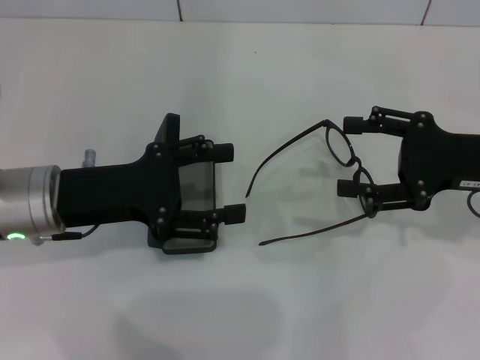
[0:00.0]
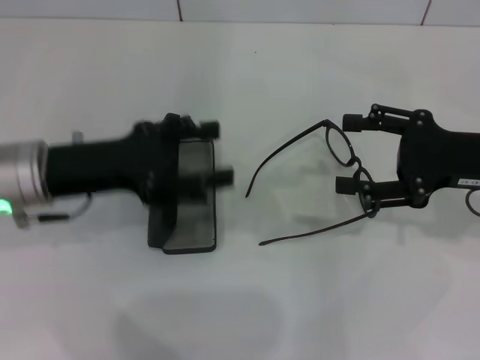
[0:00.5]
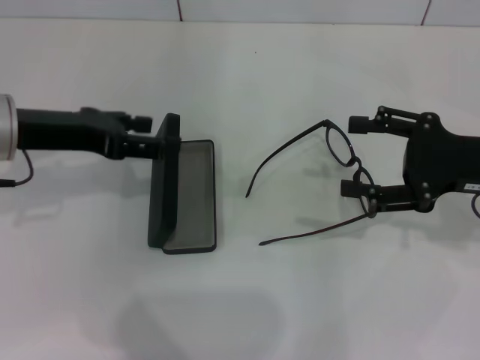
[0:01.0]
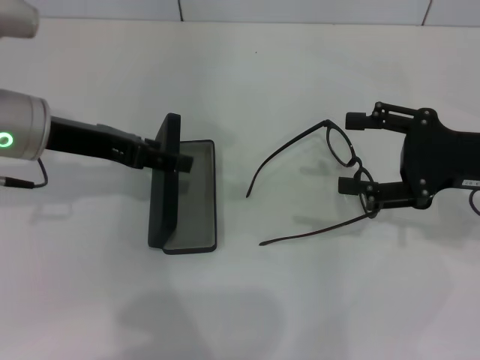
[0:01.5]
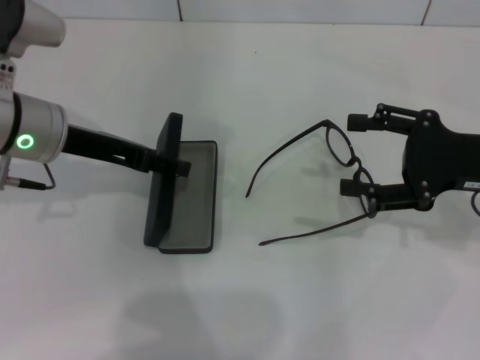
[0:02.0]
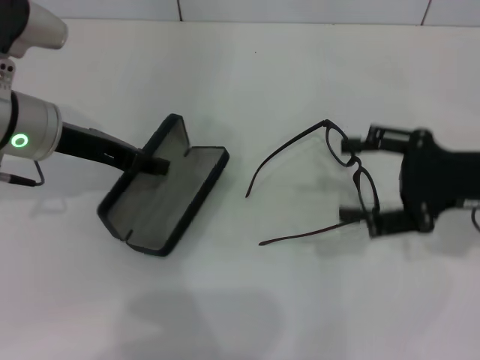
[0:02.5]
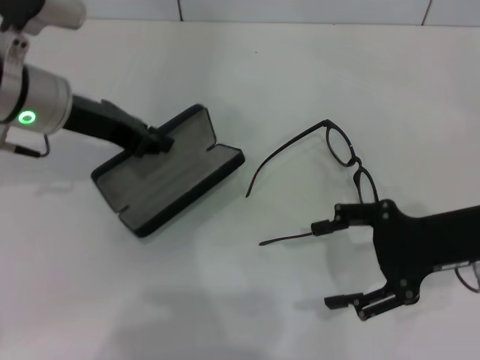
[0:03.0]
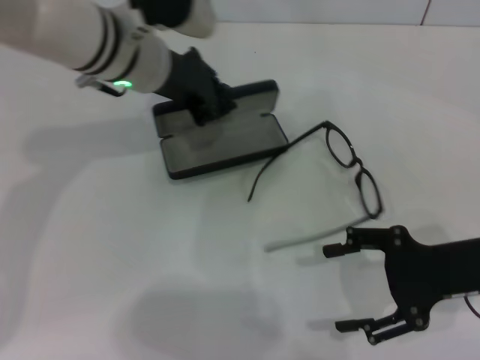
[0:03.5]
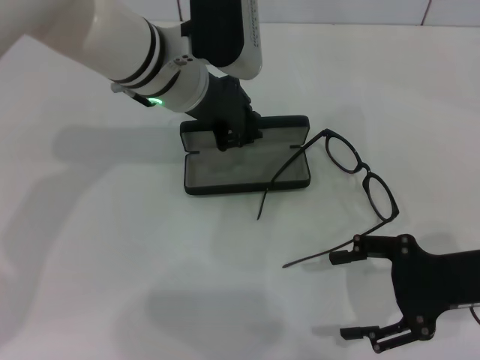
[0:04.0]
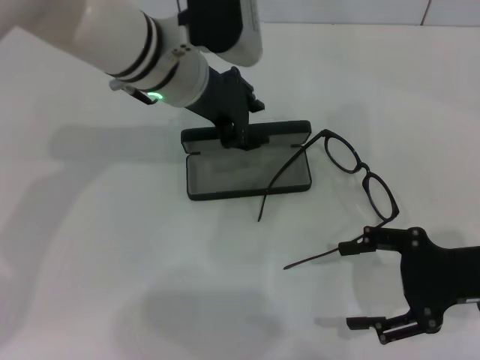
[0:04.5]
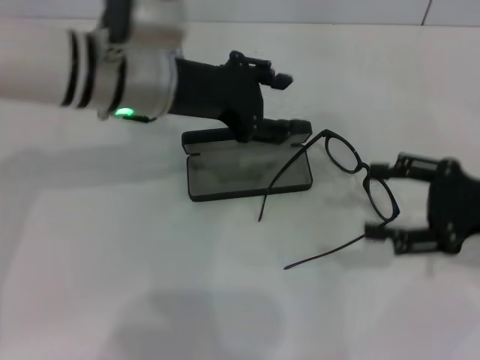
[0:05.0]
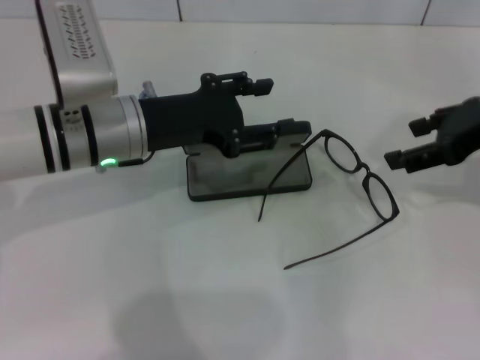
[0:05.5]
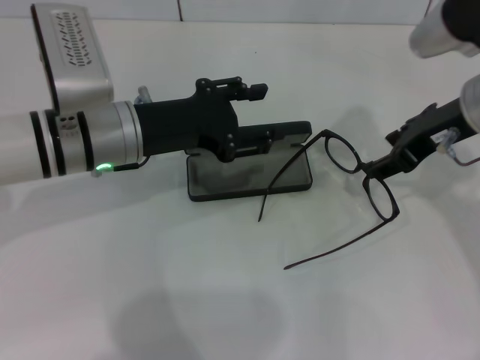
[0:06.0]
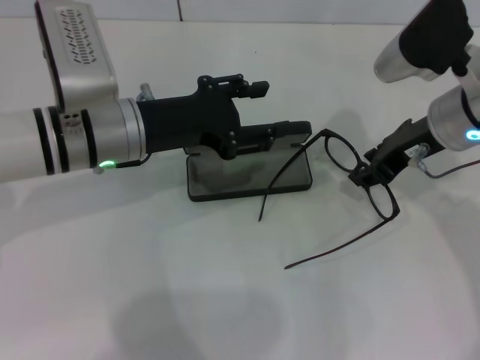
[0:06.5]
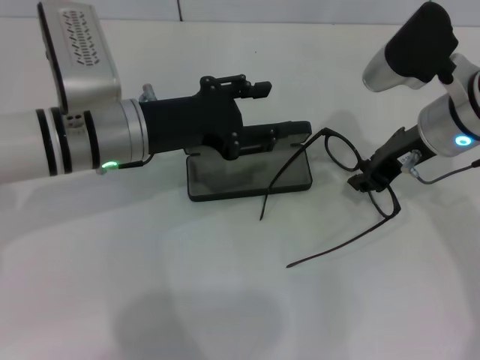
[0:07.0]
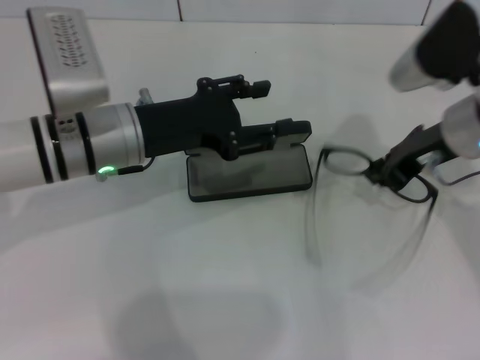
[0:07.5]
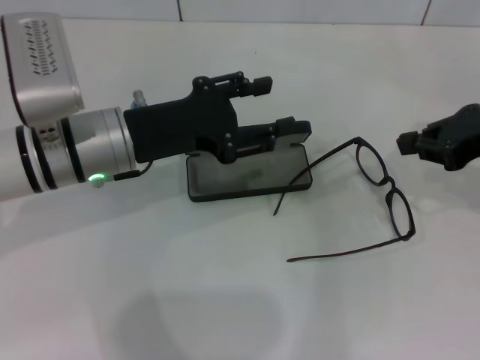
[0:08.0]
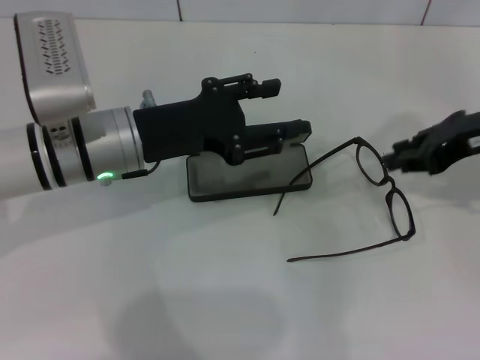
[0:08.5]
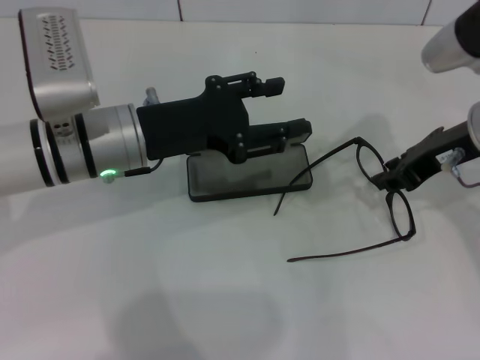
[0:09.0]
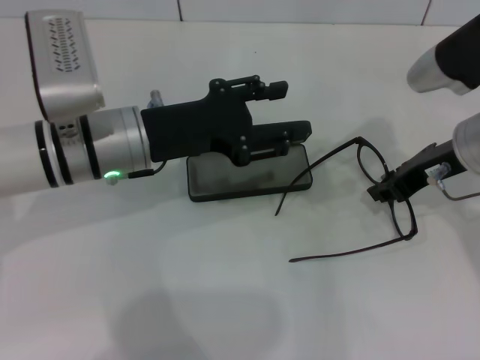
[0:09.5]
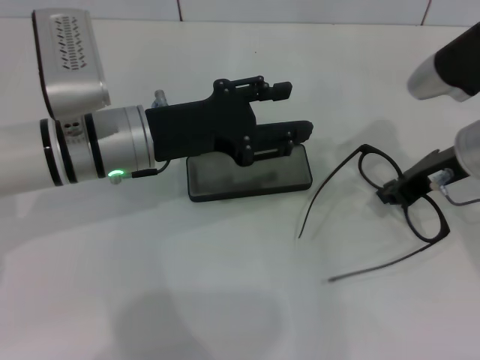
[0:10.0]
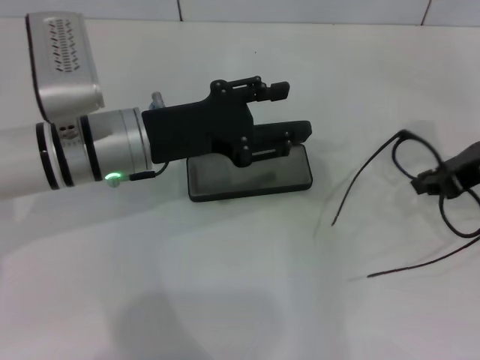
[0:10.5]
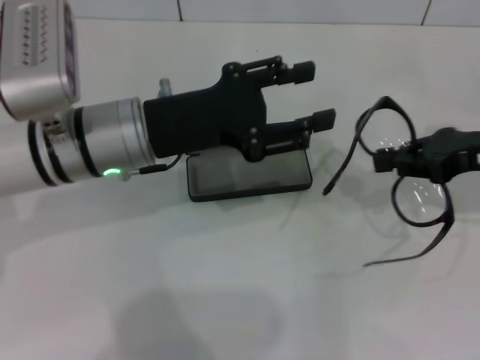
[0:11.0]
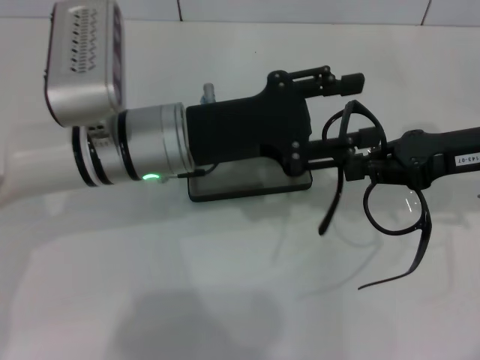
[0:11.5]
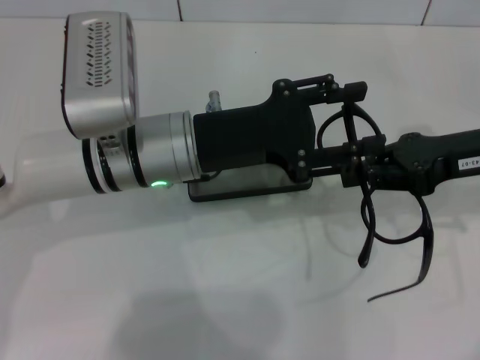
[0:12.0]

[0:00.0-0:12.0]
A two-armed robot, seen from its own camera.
Step, 0:00.0 to 0:02.5: Grab the glasses case with your left hand.
Step, 0:03.0 to 0:04.5: Place the glasses case in the center of the table with your left hand.
Step, 0:05.0 to 0:09.5: Grab the eyeglass frame with your right hand.
0:00.0 to 0:02.0: The left gripper moves forward, approximately 5 cm.
0:02.0 to 0:04.0: The right gripper moves backward, some 5 cm. Meanwhile the left gripper shifts roughly 15 cm to the right, and closes its fingers.
0:04.0 to 0:06.0: The right gripper goes approximately 15 cm forward, upward and to the left. Meanwhile the left gripper shifts some 10 cm to the left and backward, and opens up.
0:06.0 to 0:08.0: The right gripper travels to the right by some 10 cm, and closes its fingers.
0:08.0 to 0:10.0: The right gripper goes roughly 5 cm to the left.

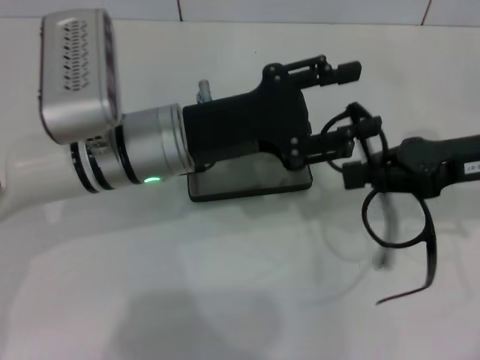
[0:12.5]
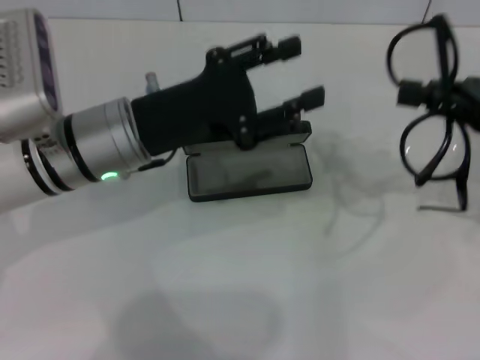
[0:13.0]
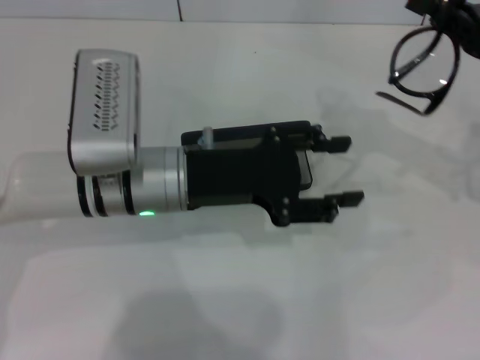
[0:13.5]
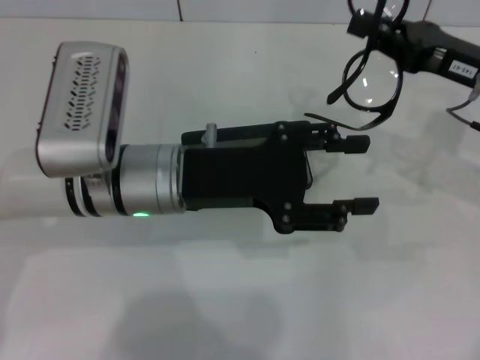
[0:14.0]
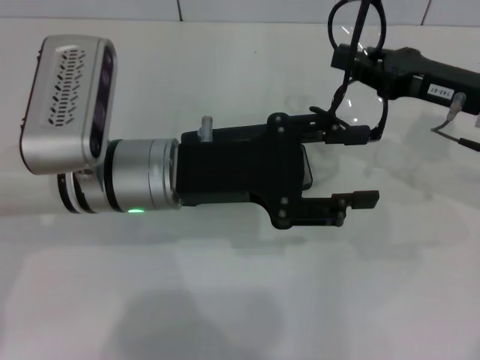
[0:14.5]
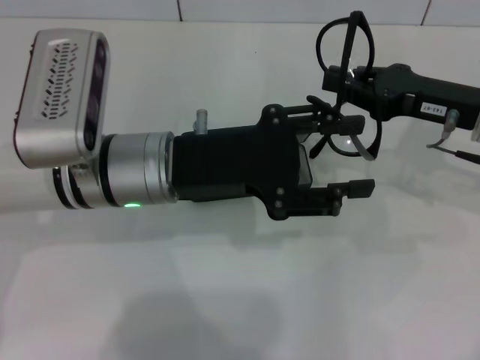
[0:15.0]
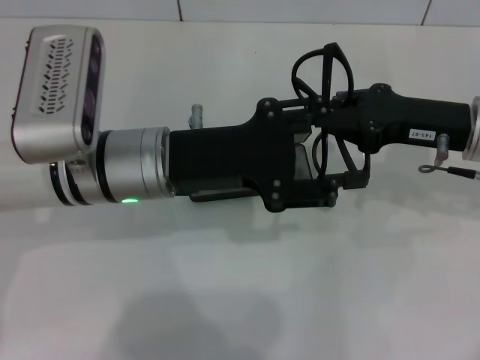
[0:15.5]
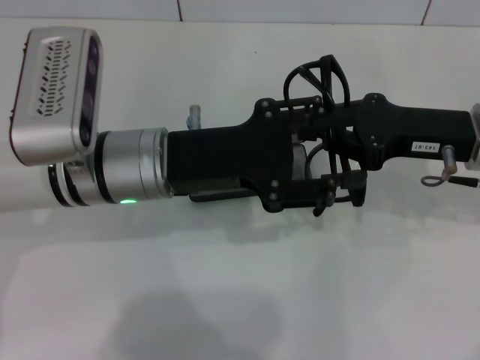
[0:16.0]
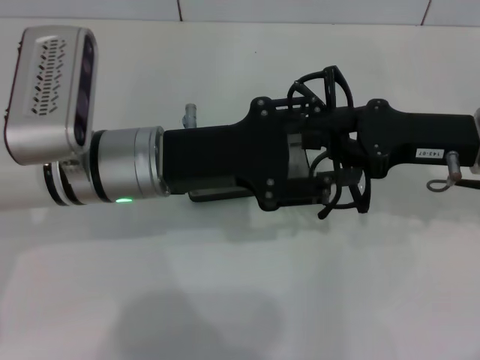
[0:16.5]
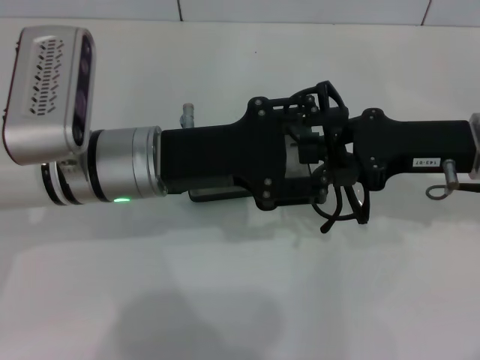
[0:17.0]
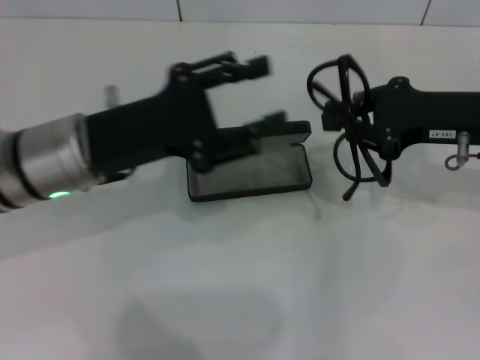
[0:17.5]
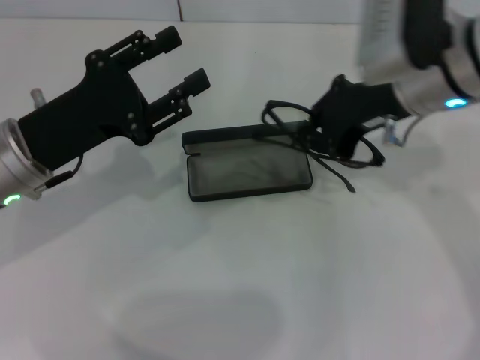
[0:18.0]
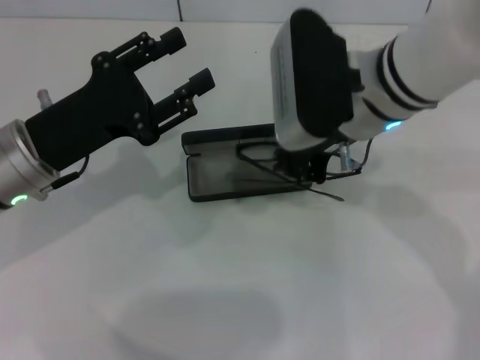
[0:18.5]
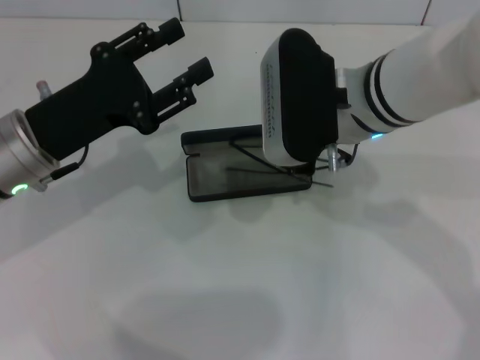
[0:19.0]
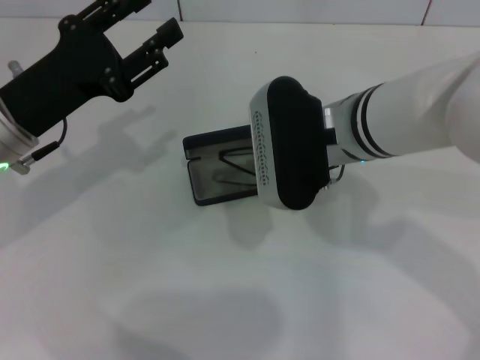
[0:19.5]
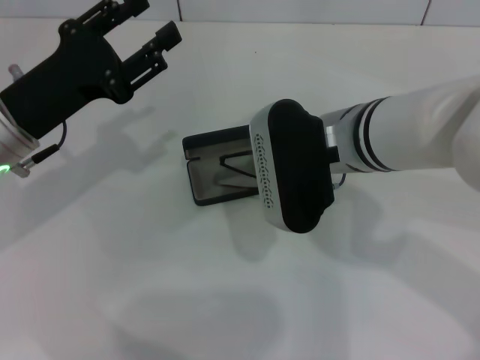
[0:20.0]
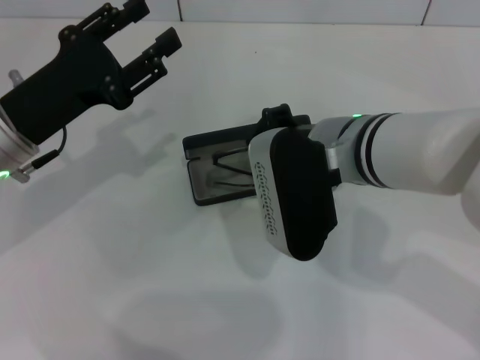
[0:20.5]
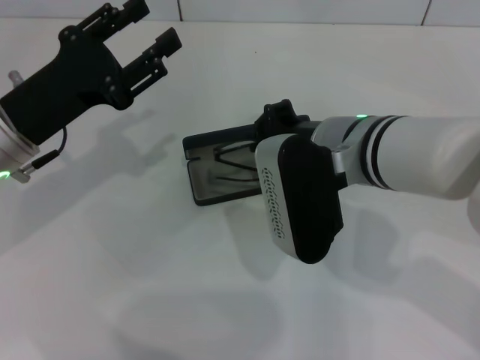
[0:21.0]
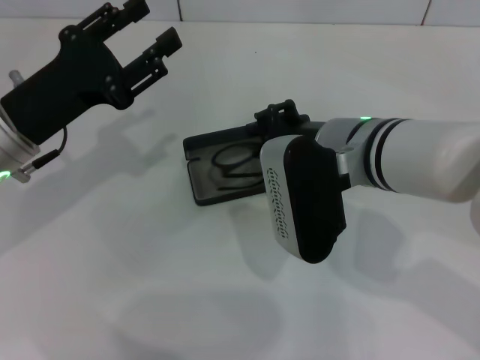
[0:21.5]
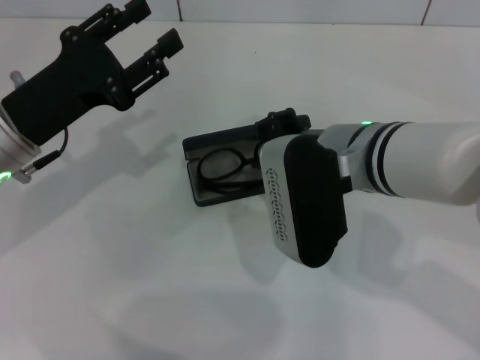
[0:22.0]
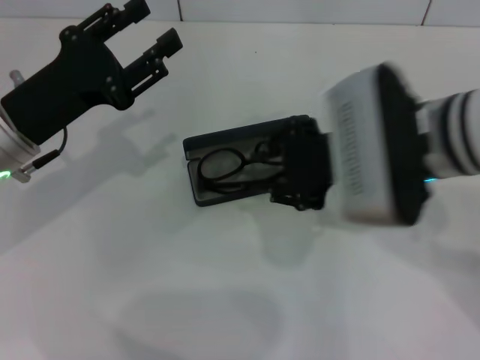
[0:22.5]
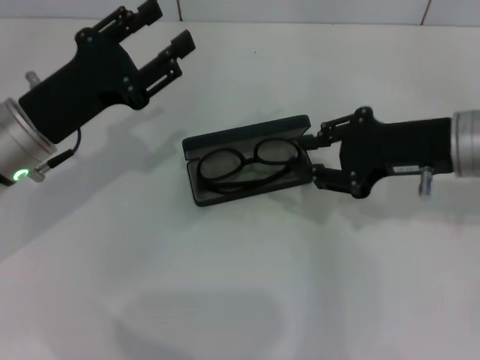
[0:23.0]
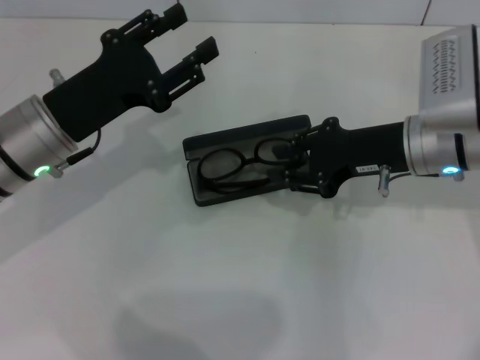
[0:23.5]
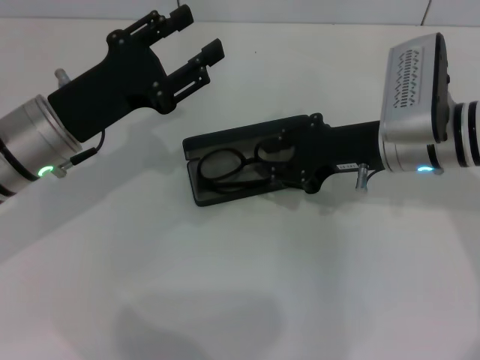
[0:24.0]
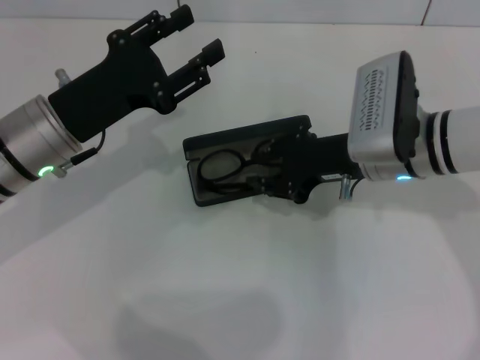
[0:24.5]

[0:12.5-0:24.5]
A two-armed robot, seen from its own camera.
Step, 0:12.5 to 0:16.0: Lift the glasses with your right hand.
0:16.5 to 0:18.5: The left gripper moves to the left, approximately 10 cm. The right gripper travels to the left by about 15 cm.
0:18.5 to 0:20.5: The right gripper ends up approximately 5 cm from where it was.
0:20.5 to 0:22.5: The right gripper ends up approximately 5 cm from where it was.
0:22.5 to 0:24.5: The right gripper is displaced downward and forward by approximately 10 cm.

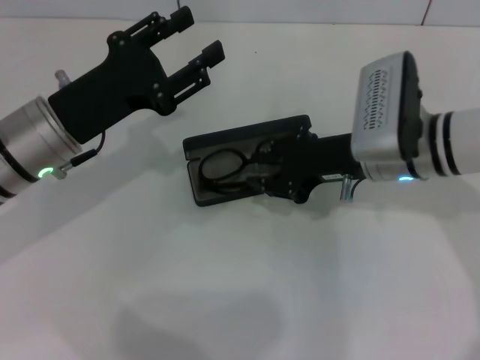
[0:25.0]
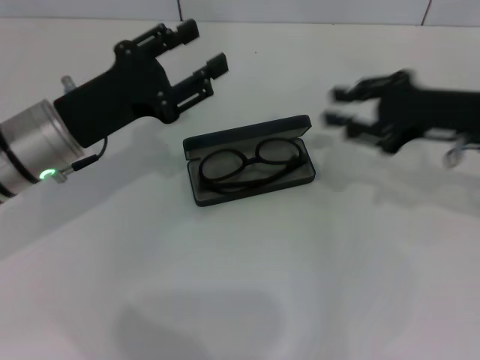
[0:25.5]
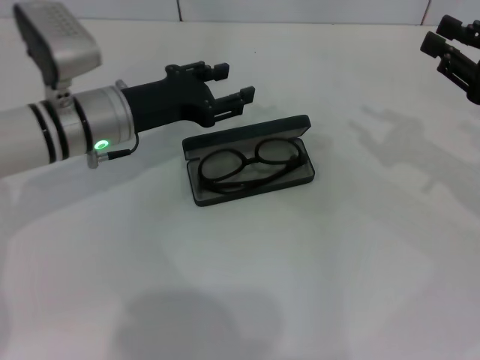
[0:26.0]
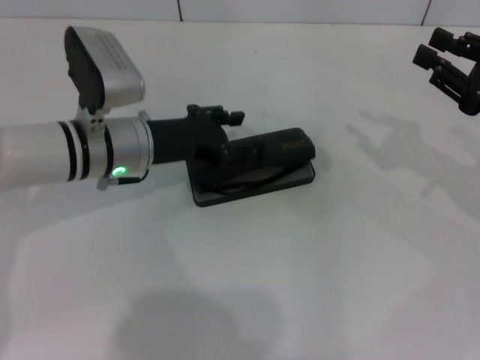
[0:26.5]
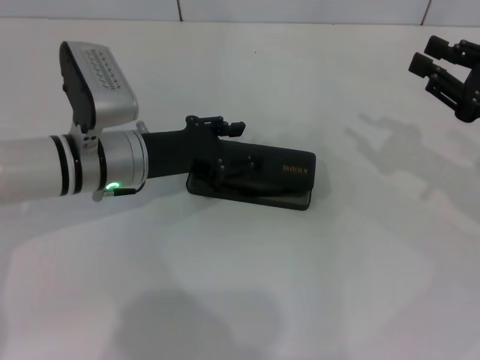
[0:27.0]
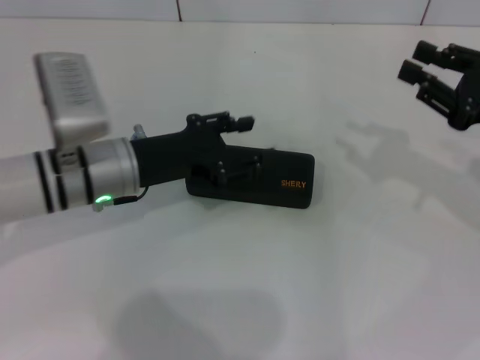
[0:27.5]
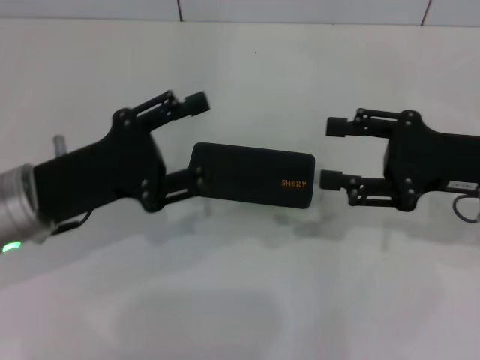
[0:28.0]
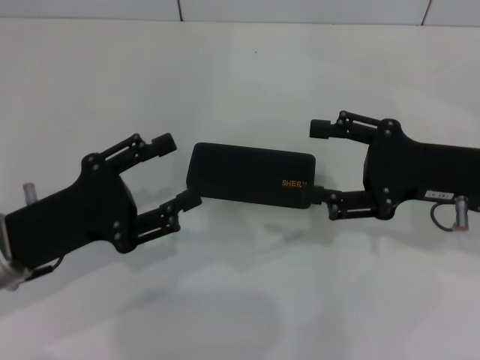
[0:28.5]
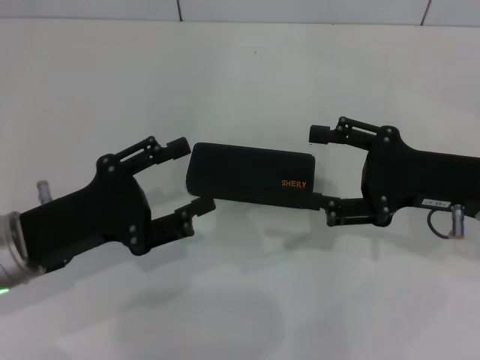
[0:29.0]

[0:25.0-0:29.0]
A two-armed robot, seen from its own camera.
Step, 0:25.5 to 0:27.0: Close the glasses case with your left hand.
0:25.0 to 0:27.0: The left gripper moves some 5 cm. Meanwhile the right gripper is displaced to the right by approximately 15 cm.
0:27.0 to 0:29.0: The left gripper moves backward and to the left, roughly 15 cm, while the right gripper goes about 5 cm to the left, and opens up.
